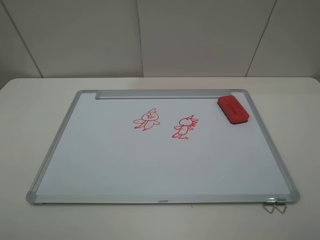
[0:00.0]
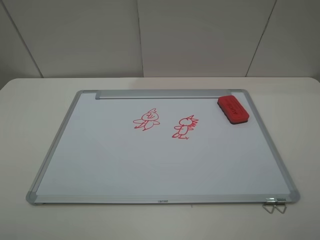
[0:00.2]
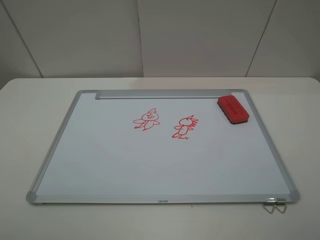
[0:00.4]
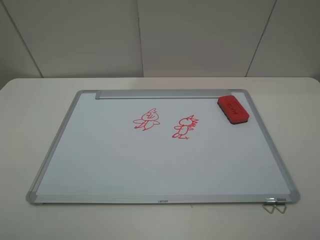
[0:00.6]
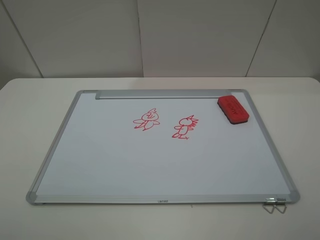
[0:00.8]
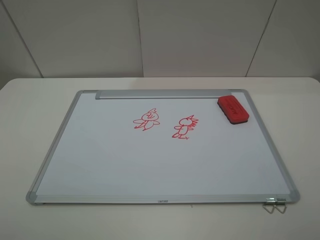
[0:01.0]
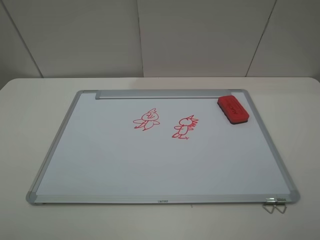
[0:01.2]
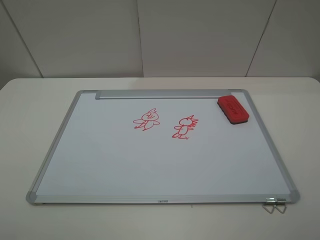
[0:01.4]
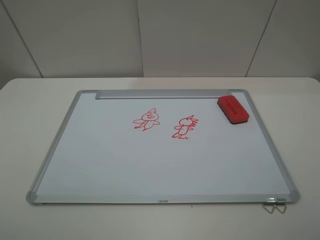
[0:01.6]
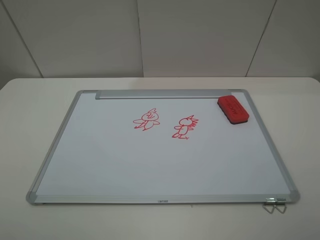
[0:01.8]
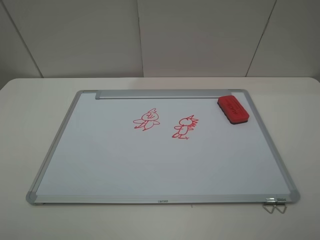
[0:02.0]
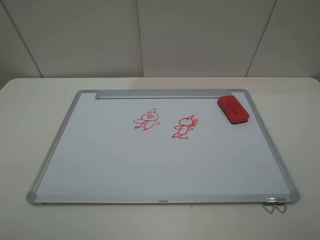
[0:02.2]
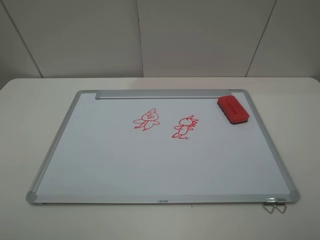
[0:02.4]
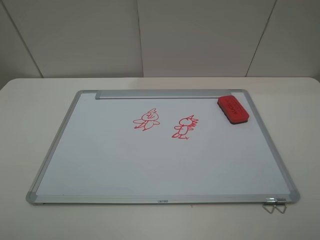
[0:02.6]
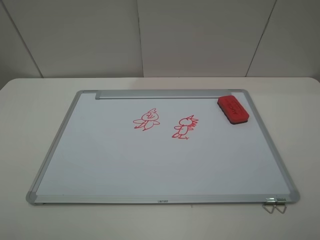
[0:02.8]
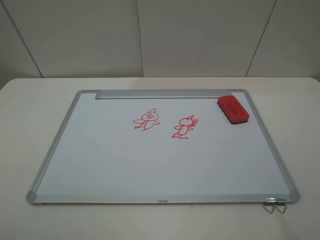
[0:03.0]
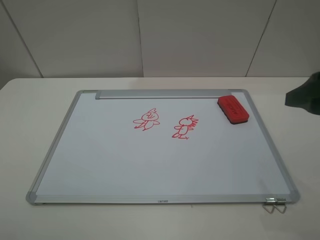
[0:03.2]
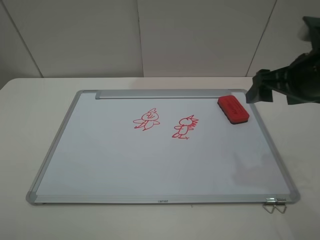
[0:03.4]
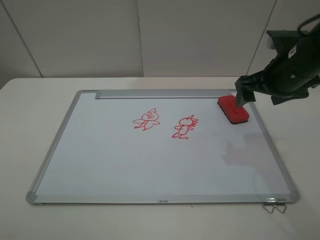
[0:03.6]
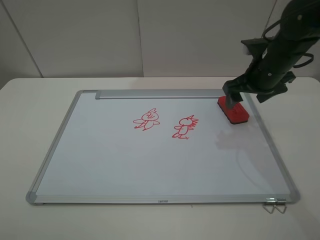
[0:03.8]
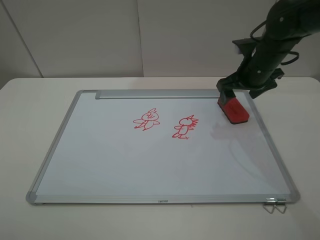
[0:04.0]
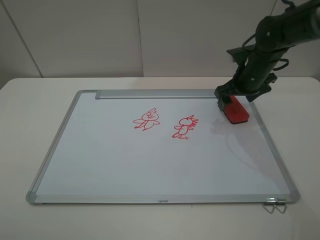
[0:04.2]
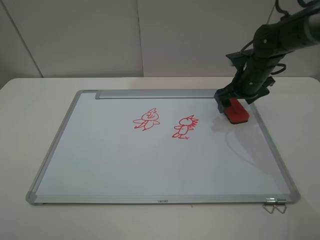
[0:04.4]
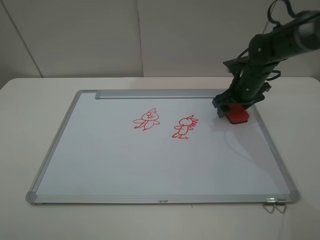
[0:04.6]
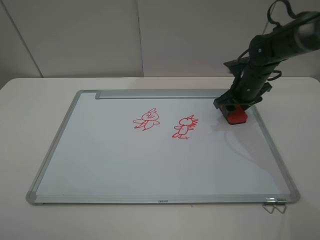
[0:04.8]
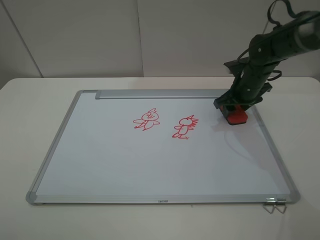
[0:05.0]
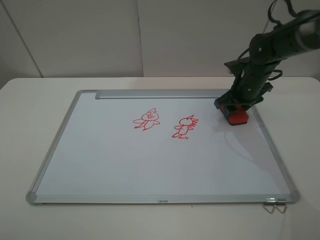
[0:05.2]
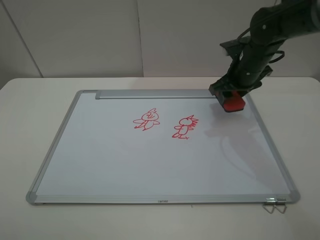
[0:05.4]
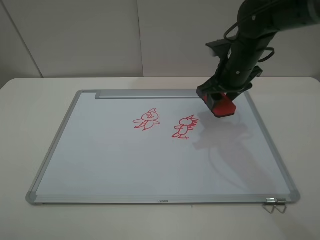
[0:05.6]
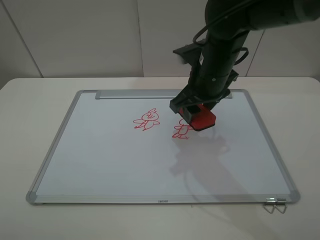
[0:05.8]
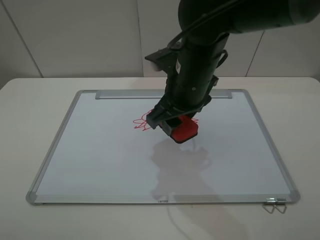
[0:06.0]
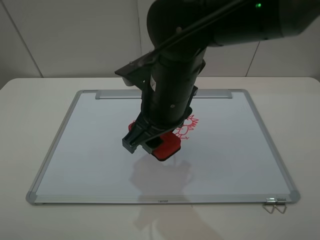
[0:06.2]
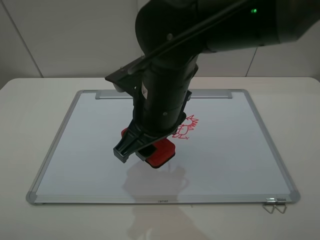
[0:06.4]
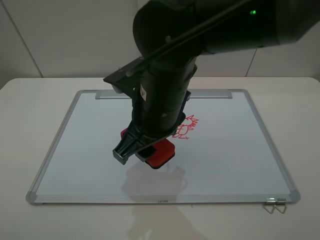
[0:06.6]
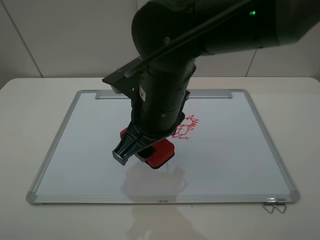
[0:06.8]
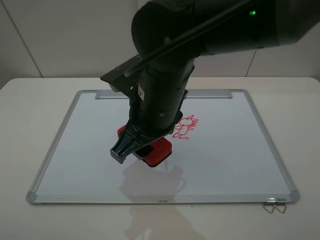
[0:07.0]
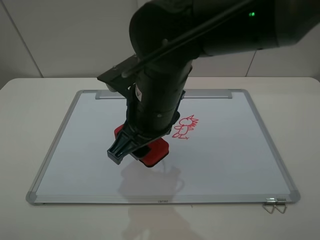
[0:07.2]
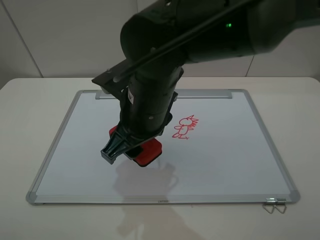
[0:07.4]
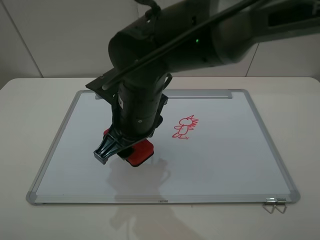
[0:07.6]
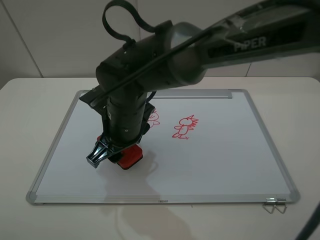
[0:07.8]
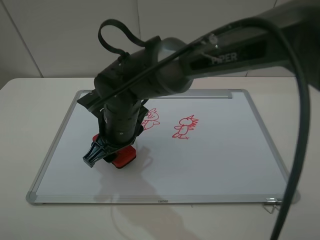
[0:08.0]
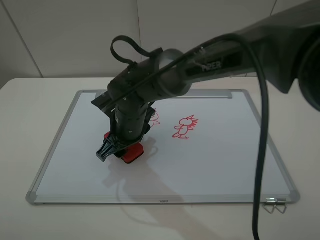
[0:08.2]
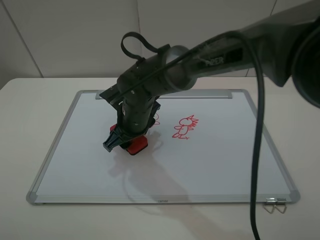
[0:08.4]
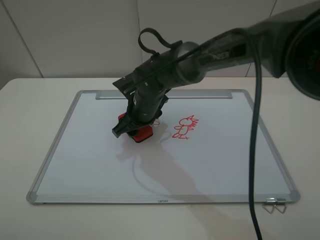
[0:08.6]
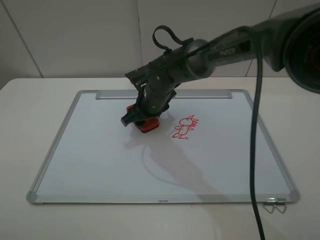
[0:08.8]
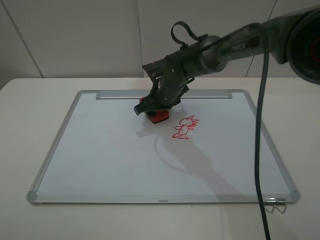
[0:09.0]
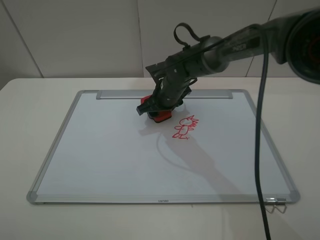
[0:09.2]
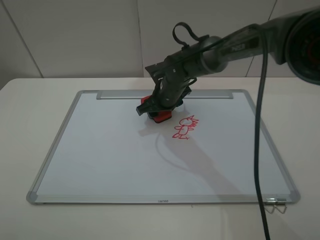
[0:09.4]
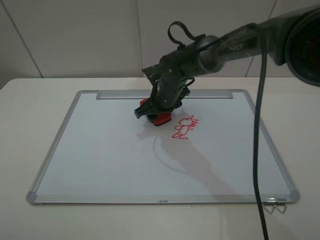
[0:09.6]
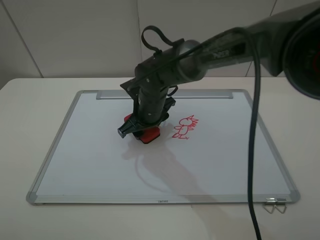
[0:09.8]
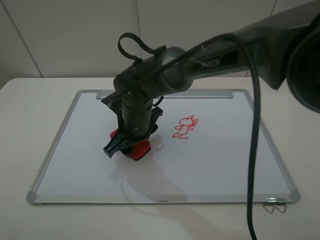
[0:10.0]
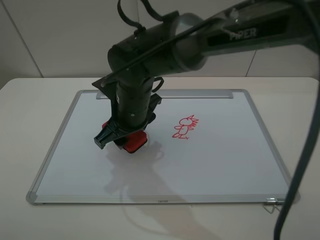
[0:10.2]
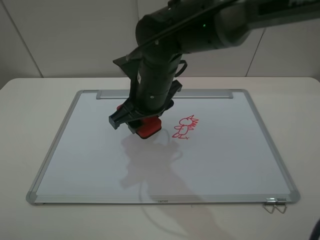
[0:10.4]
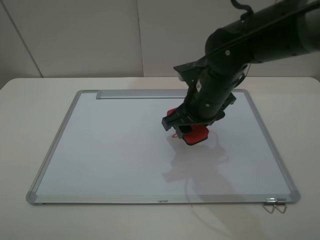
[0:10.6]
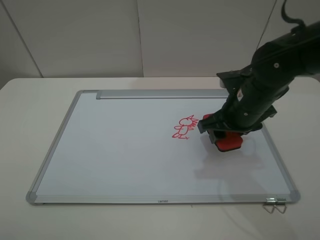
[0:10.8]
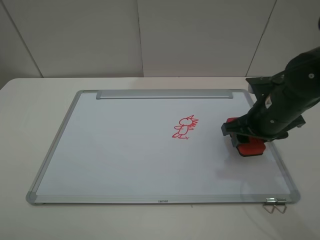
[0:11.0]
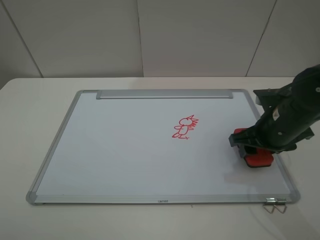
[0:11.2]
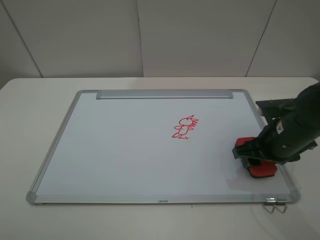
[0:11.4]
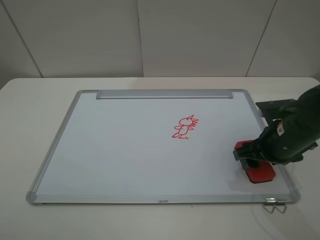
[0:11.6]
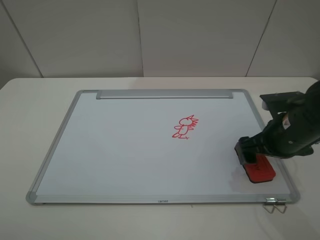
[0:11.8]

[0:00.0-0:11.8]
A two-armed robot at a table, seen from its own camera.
Step, 0.0 to 4.6 s: Grasp the eraser with the right gripper.
Step, 4.8 to 10.0 s: Grasp the eraser and wipe the blackboard with the right gripper.
Step, 10.2 to 11.8 s: Place the eraser with the right gripper.
0.0 to 1.4 s: Neither gripper changes place.
3.0 to 4.4 s: The right gripper travels forward and downward by about 35 cm.
4.4 to 6.0 s: The right gripper travels to the left, backward and upward by about 25 cm, and closes.
6.0 to 7.4 s: The right gripper heads to the left and backward, covering about 10 cm.
7.4 to 8.8 s: The right gripper shifts roughly 20 cm forward and downward.
8.8 to 10.4 s: The right gripper goes approximately 15 cm upward and backward.
10.4 to 11.8 s: The right gripper shifts about 25 cm to the right, and opens its fingers.

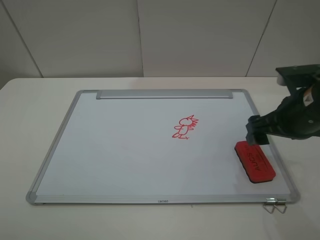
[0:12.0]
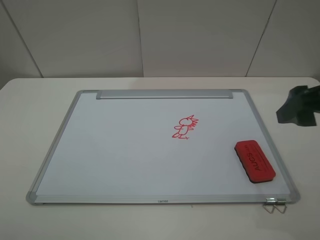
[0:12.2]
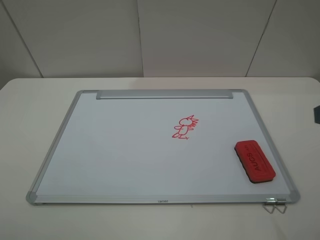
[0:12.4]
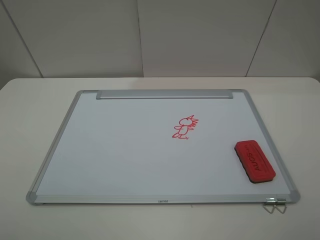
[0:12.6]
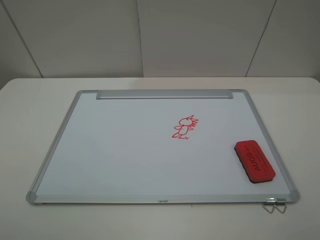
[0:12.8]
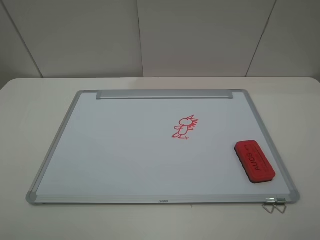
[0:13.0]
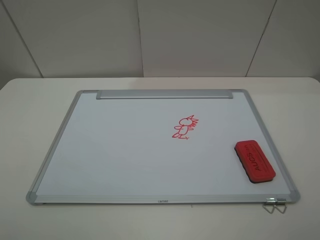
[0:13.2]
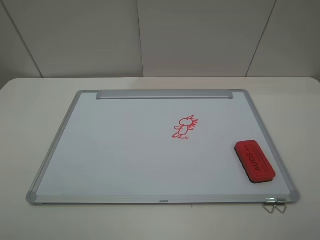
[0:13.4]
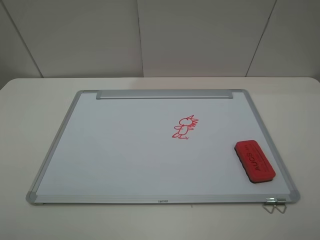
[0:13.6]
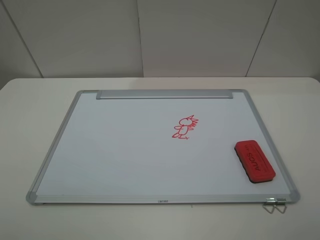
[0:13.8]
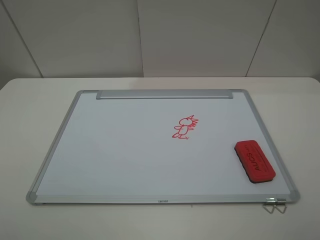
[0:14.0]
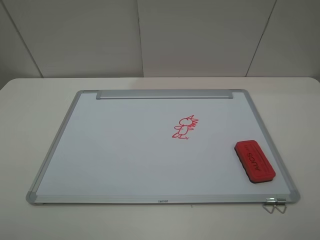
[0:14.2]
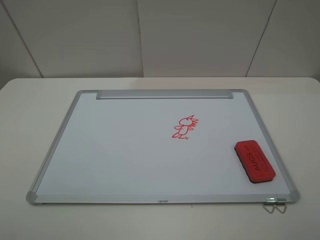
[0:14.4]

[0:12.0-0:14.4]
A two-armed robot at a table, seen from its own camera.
12.0 to 13.2 s: The right gripper shifts roughly 25 cm backward.

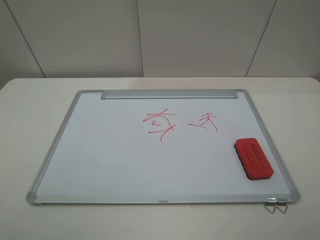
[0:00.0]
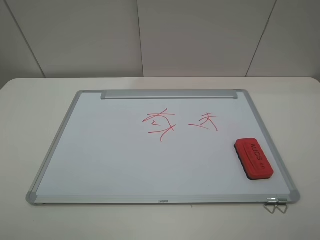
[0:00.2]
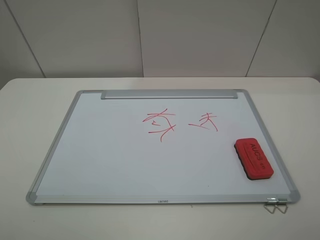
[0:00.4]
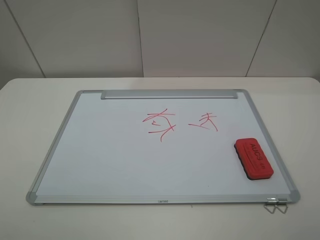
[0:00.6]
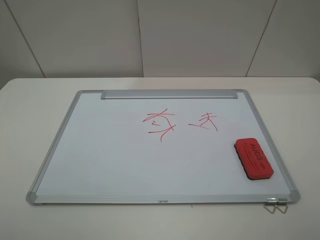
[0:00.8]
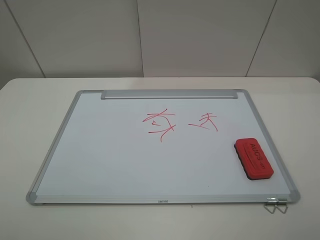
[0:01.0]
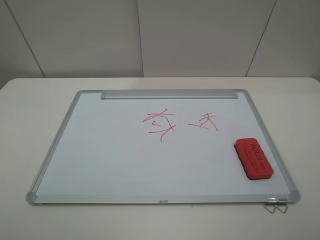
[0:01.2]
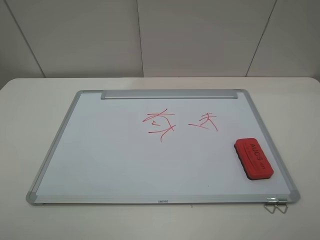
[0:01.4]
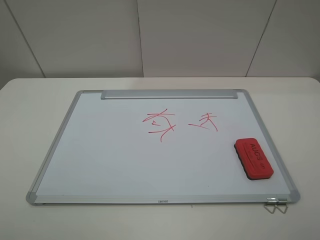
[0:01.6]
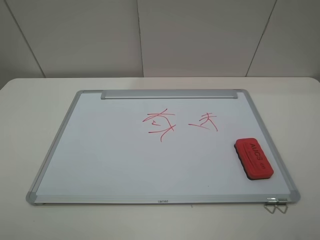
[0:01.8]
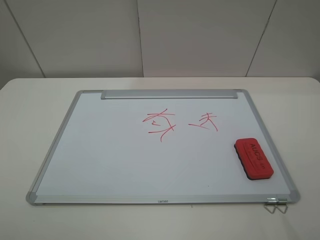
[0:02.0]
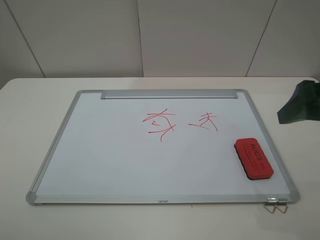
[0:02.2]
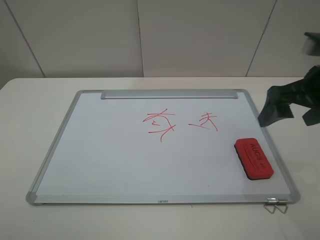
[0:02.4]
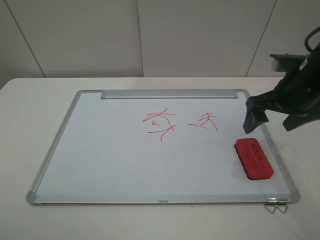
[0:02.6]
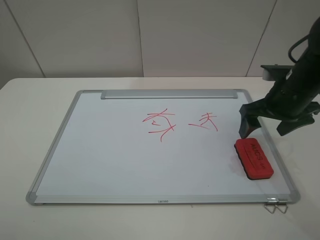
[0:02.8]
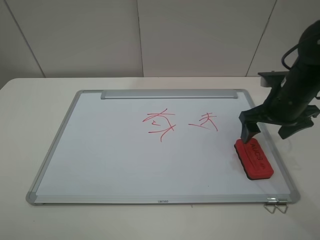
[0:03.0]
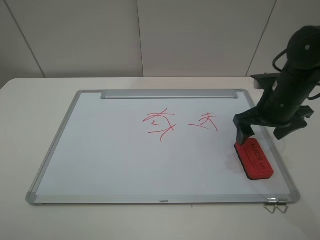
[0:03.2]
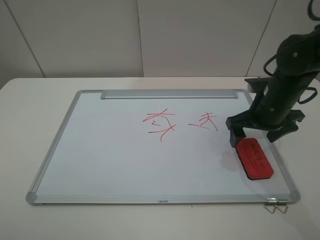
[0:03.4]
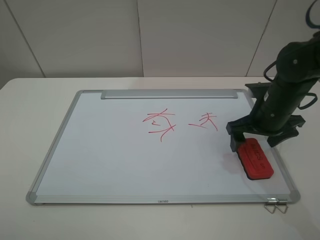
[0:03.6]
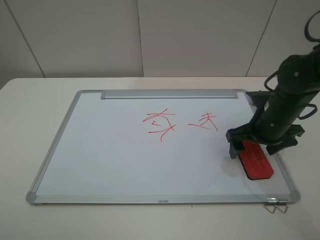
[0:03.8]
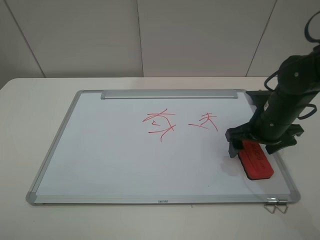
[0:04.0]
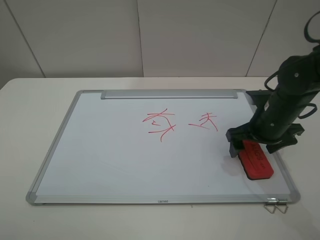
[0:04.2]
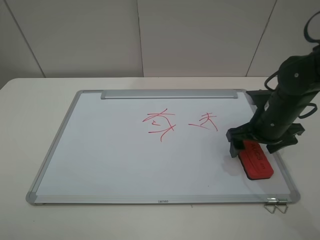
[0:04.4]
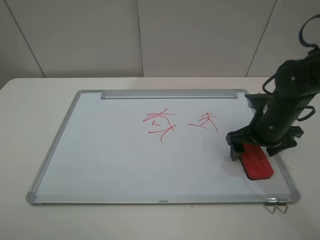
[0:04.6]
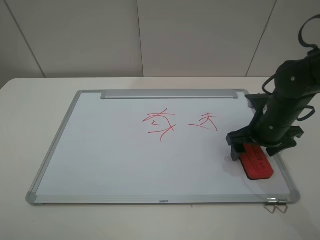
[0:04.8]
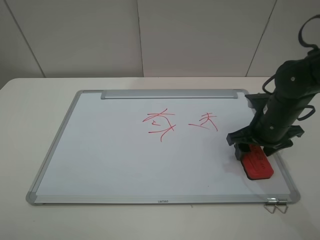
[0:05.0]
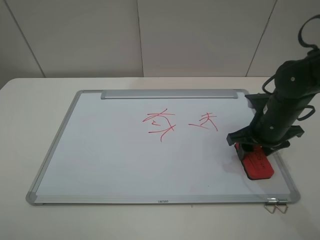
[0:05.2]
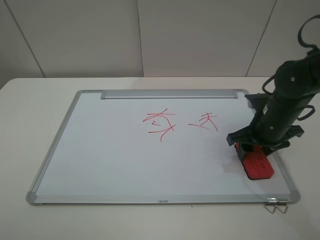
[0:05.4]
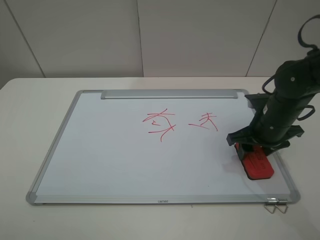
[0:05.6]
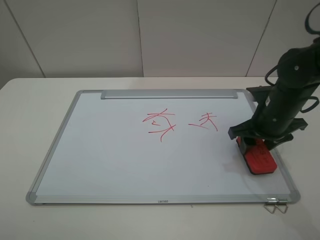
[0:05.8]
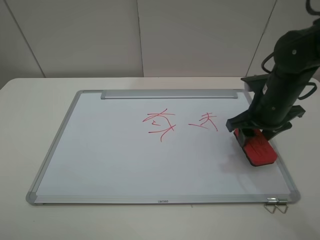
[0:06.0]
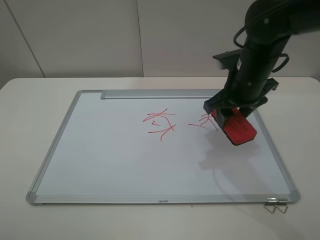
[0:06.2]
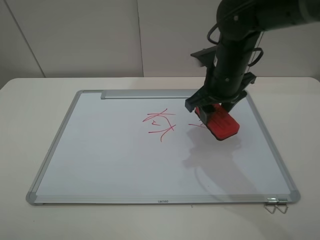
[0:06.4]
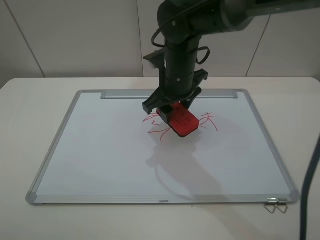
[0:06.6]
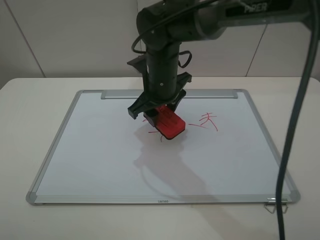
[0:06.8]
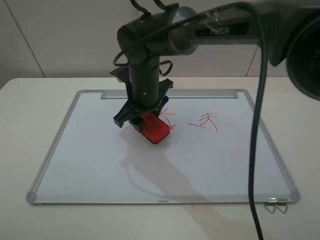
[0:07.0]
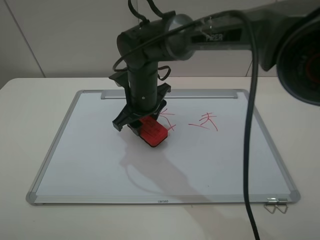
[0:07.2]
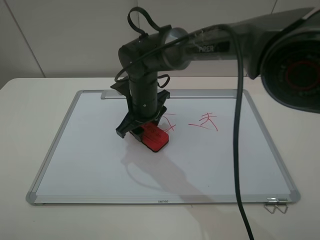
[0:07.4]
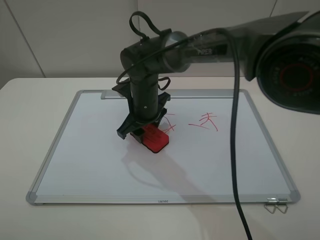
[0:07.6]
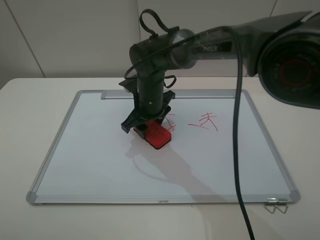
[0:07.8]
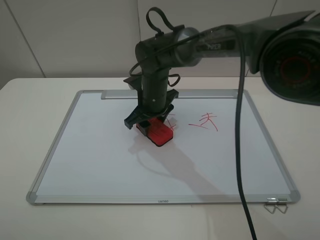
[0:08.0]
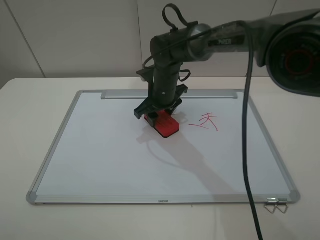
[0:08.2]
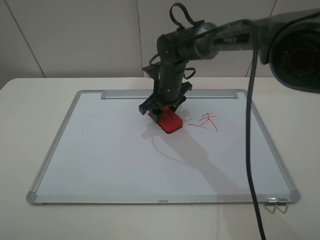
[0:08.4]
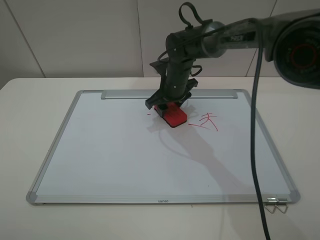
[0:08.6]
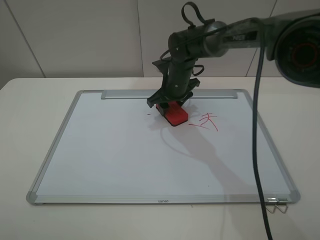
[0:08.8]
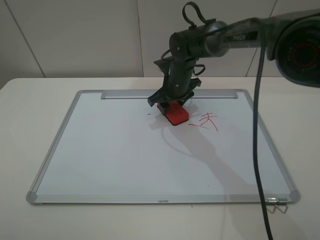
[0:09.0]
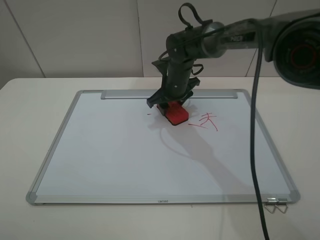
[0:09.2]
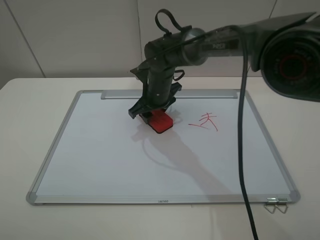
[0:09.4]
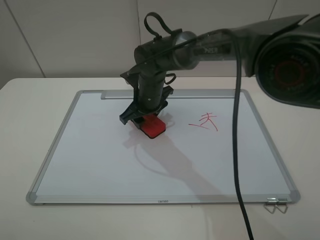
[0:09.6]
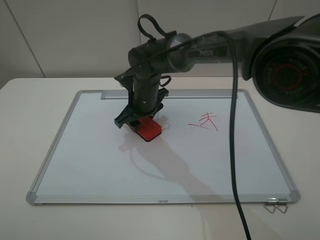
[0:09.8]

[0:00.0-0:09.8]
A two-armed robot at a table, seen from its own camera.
Step, 0.0 to 5.0 s: Grasp the eraser with the right gripper.
0.0 to 1.4 s: The two grippers keep their place.
1.4 to 2.8 s: The right gripper goes some 30 cm forward.
2.8 to 4.2 s: The right gripper travels downward by about 5 cm.
4.2 to 5.6 s: The right gripper closes up.
5.6 to 7.0 s: The right gripper heads to the left, covering some 25 cm.
7.0 to 8.4 s: The right gripper moves forward and to the right, some 10 cm.
8.4 to 9.8 s: The right gripper shifts roughly 5 cm to the left.
